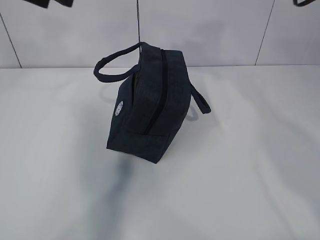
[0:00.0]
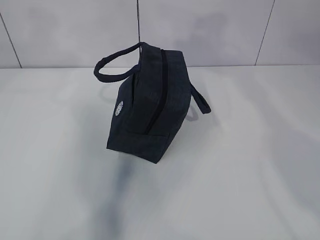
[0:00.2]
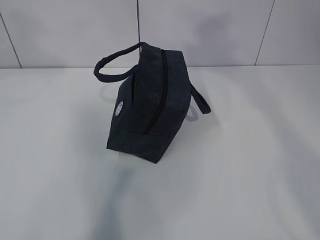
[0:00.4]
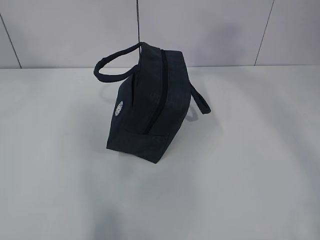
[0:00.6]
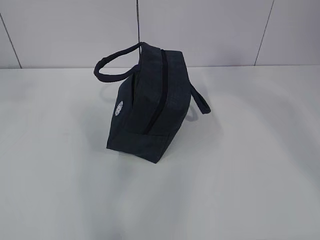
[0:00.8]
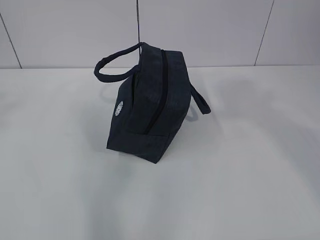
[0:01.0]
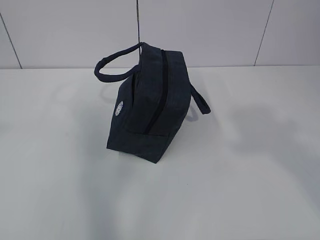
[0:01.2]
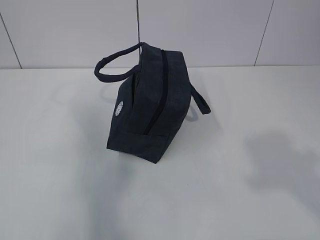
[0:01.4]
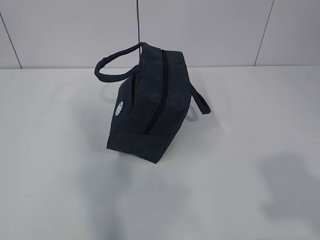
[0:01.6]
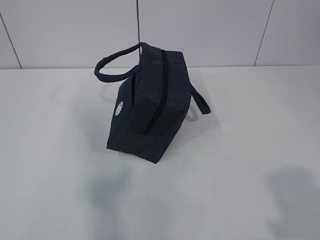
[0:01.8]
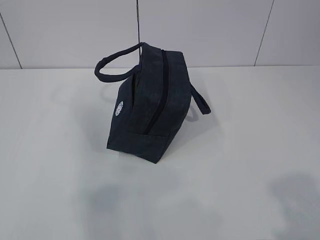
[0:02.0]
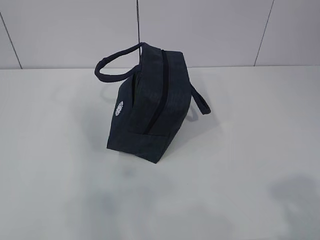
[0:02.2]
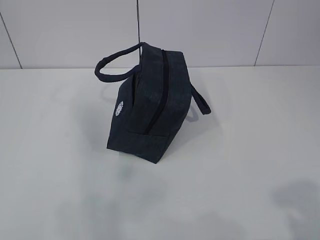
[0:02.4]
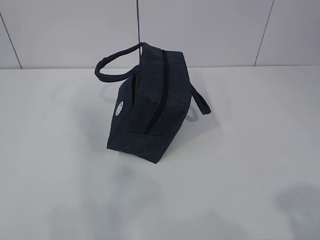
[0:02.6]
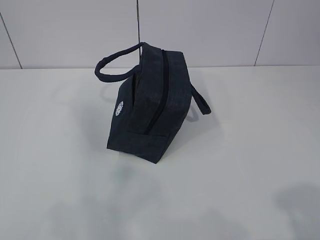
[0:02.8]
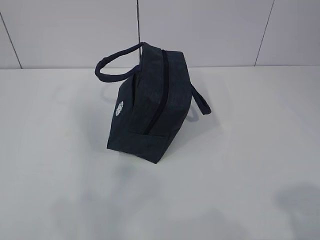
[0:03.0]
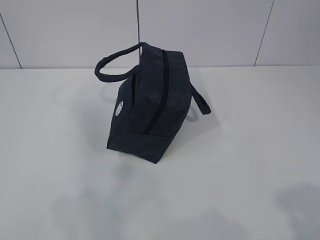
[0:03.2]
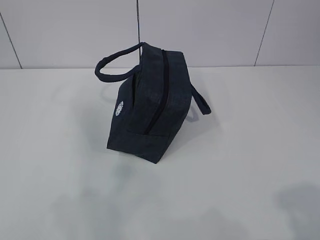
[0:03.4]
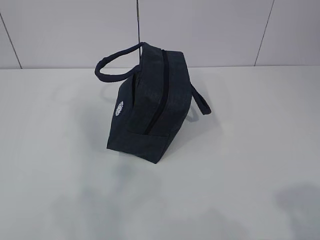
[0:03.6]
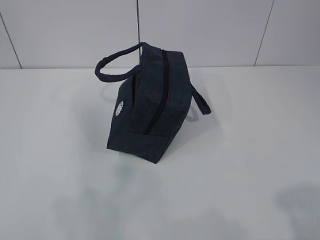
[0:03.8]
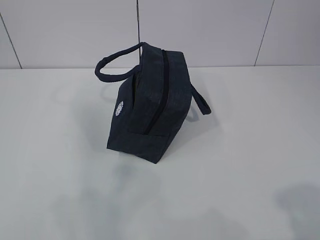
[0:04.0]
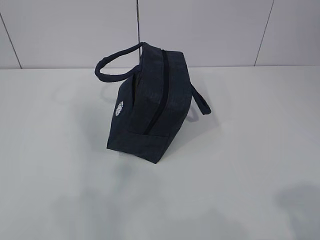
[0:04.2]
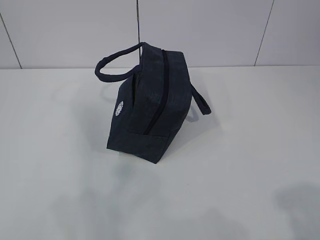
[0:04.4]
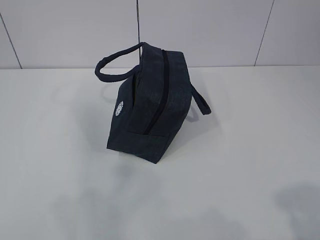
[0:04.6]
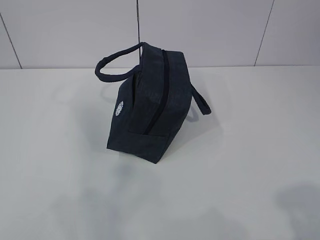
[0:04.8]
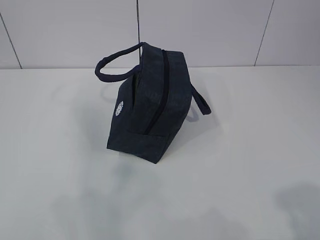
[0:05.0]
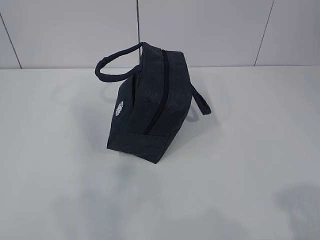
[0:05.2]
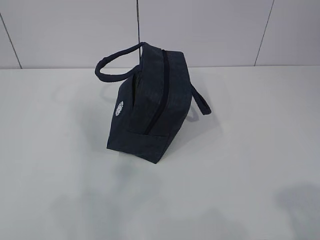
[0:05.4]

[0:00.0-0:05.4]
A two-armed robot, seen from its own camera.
0:00.0 to 0:01.4: Both grippers travel together backward, approximately 35 cm.
0:01.4 to 0:02.8: The left gripper goes approximately 15 cm downward.
0:02.8 to 0:05.4: Neither gripper changes place.

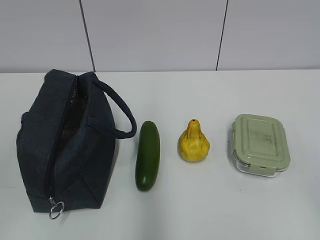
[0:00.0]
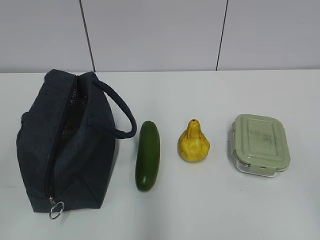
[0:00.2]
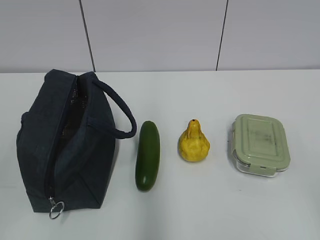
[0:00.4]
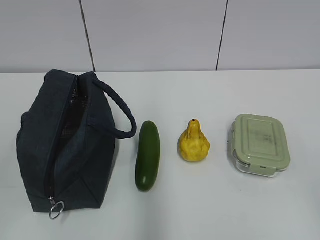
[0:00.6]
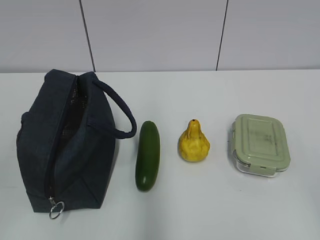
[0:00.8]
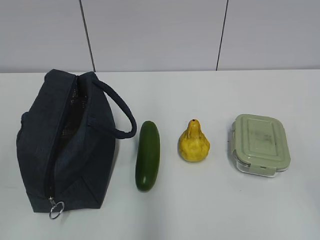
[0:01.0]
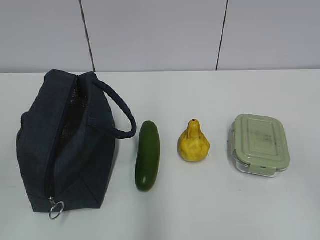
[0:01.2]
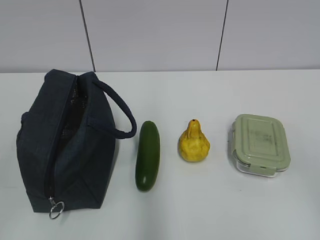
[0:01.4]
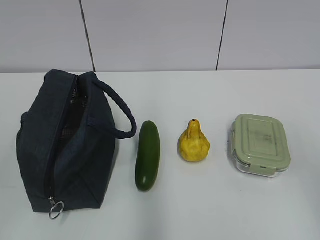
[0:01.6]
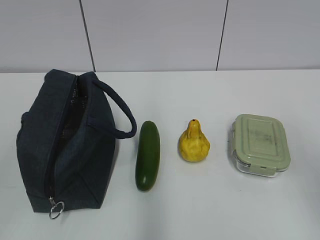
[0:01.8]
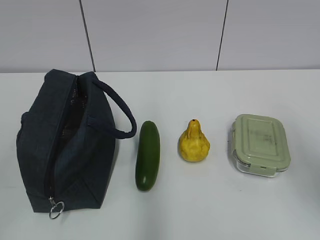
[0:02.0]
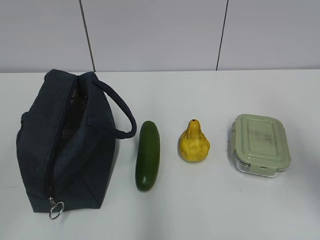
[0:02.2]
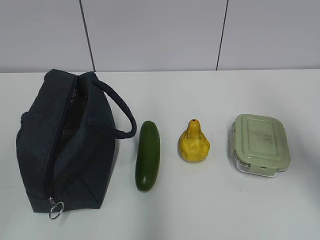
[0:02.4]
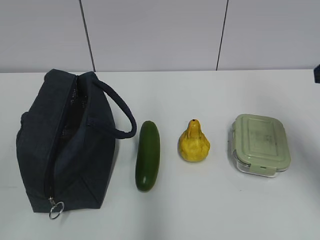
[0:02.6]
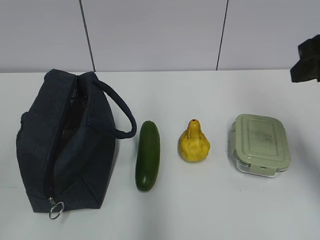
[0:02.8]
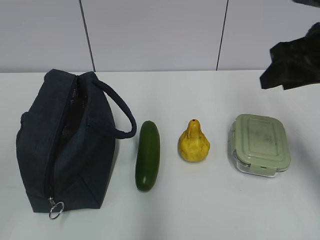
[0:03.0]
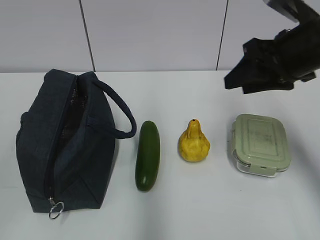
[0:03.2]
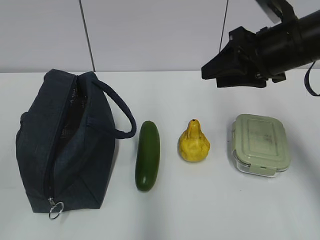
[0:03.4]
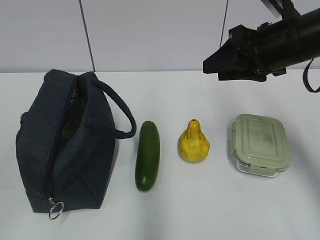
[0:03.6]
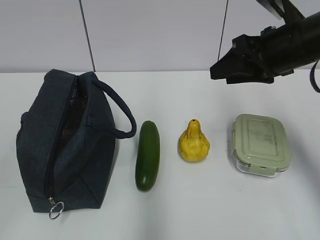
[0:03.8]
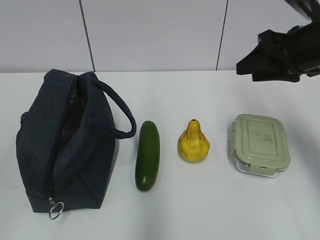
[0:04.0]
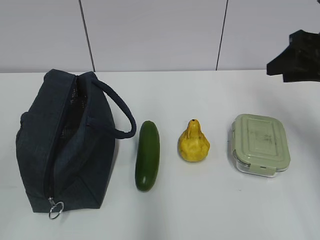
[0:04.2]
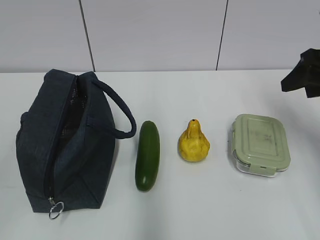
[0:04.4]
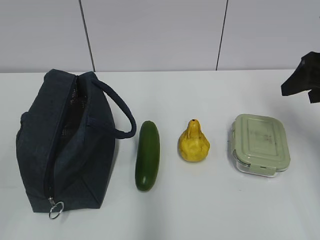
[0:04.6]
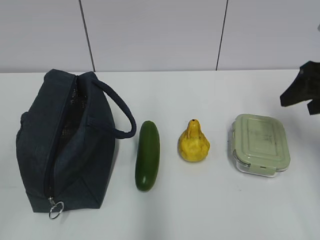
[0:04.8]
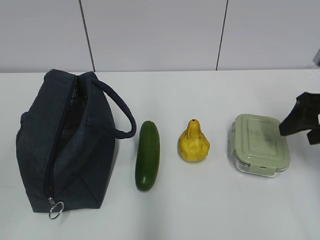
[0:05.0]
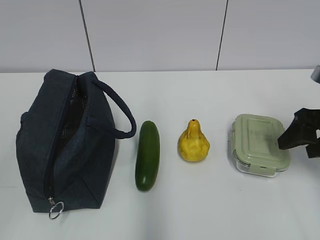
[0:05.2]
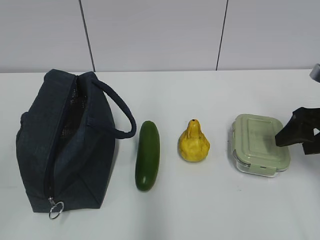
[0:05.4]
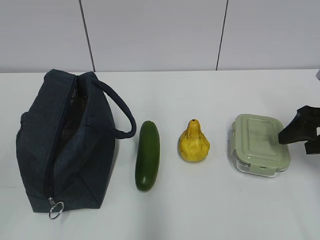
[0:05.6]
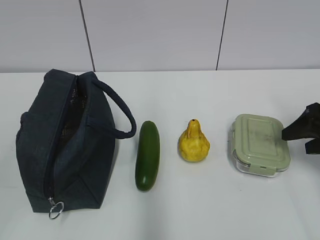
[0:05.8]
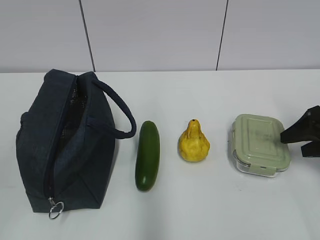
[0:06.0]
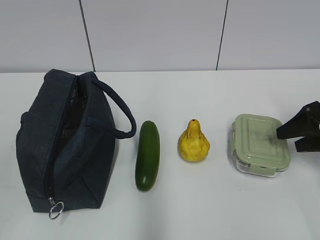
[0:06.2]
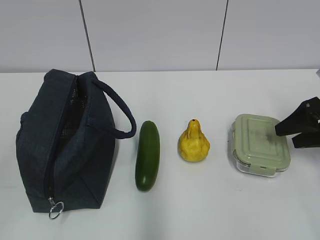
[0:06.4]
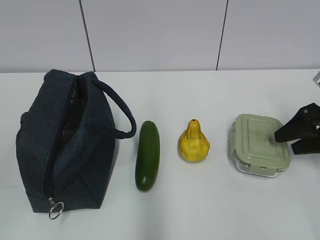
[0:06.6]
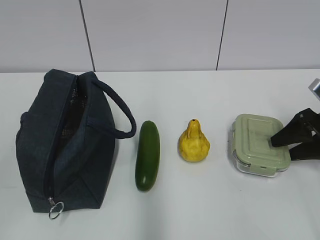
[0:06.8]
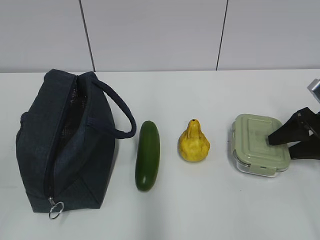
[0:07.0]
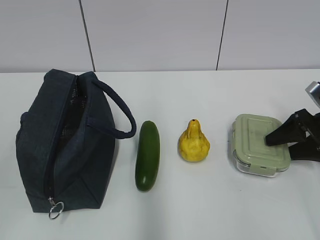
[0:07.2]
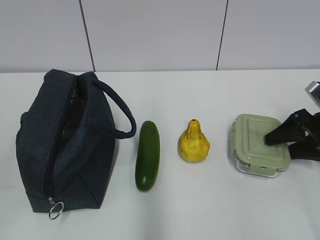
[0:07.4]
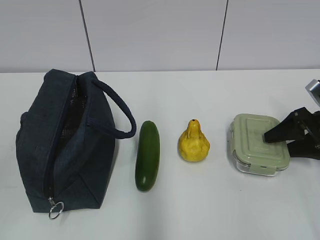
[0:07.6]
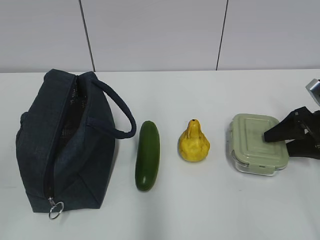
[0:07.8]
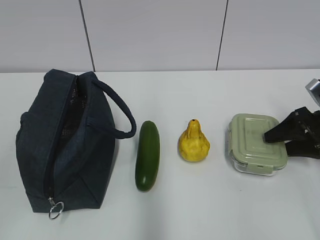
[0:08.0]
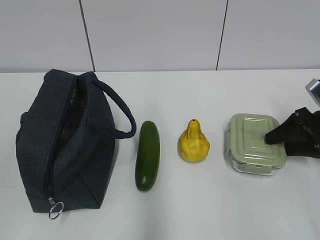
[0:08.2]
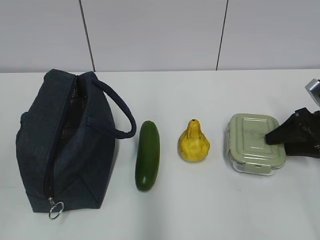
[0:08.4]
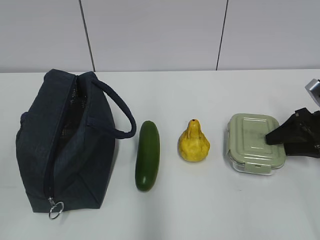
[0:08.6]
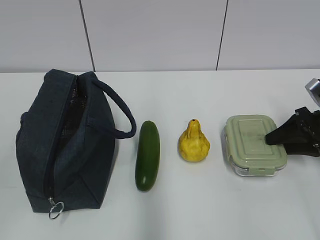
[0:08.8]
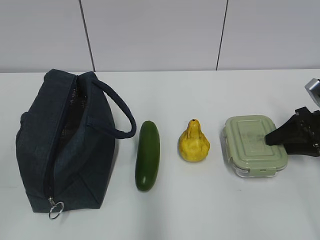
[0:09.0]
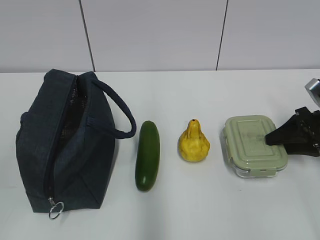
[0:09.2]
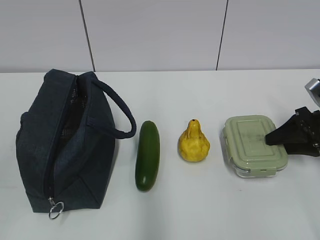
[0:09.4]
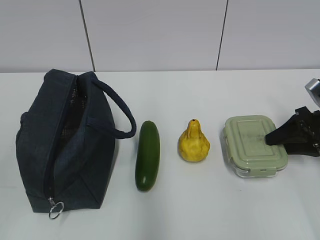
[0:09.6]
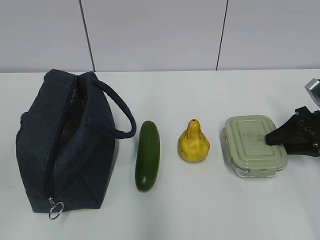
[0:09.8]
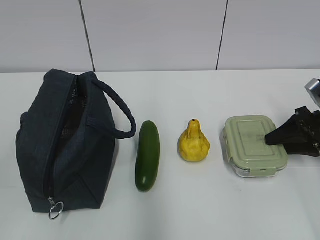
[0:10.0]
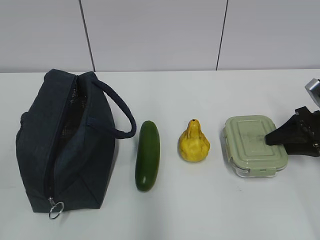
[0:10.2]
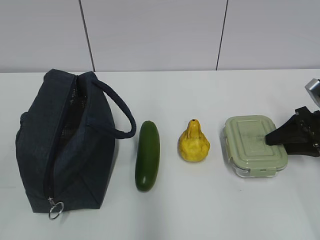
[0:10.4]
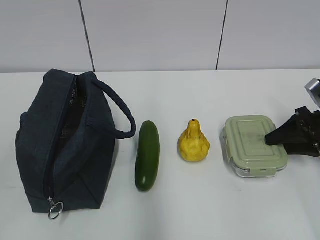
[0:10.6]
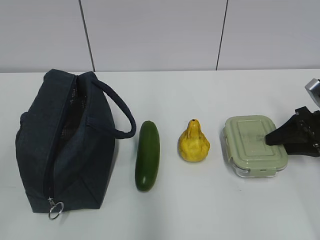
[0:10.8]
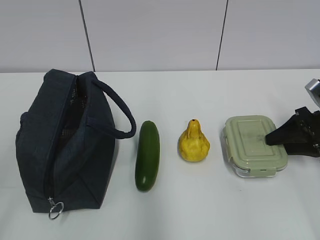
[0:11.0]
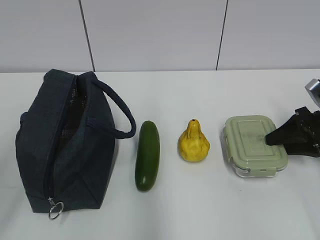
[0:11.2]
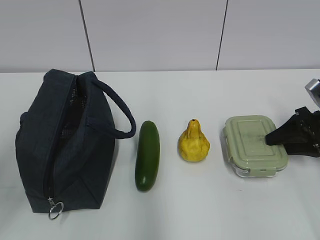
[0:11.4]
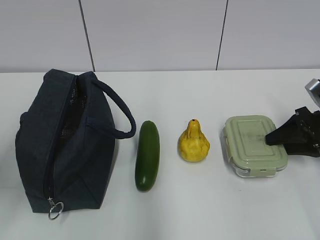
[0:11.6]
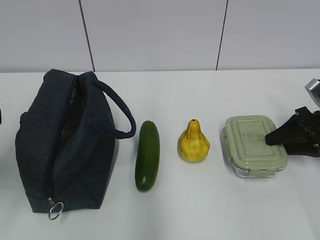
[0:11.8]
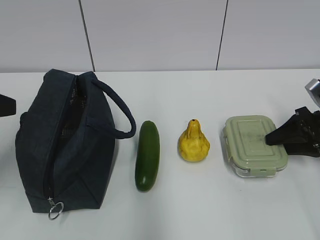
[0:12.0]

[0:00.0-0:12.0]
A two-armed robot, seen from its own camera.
0:01.6 to 0:03.0: The right gripper is displaced forward by about 25 cm.
0:03.0 to 0:04.4: The right gripper goes some 10 cm to the right.
0:04.4 to 0:06.0: The right gripper goes approximately 10 cm downward.
0:06.0 to 0:07.6: The right gripper ends up approximately 5 cm from where it was.
0:07.6 to 0:09.0: The right gripper closes.
0:09.0 to 0:10.4: Both grippers stay about where they are.
0:10.4 to 0:12.0: The left gripper shifts roughly 20 cm forward.

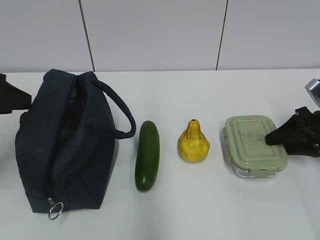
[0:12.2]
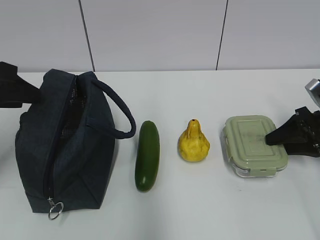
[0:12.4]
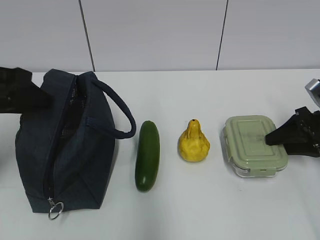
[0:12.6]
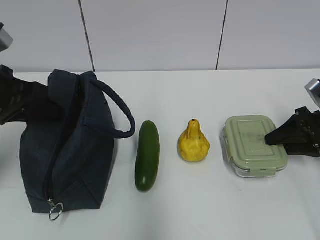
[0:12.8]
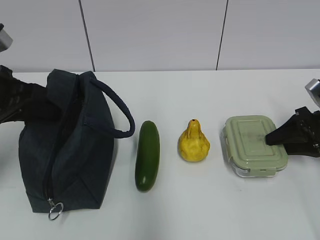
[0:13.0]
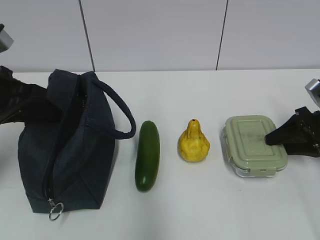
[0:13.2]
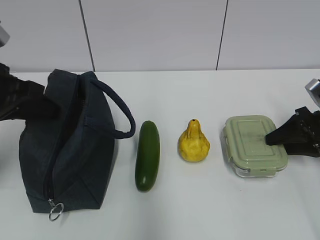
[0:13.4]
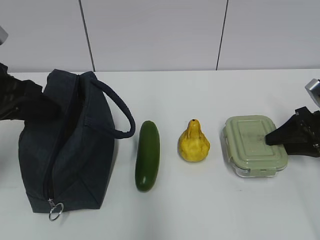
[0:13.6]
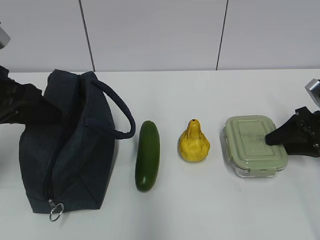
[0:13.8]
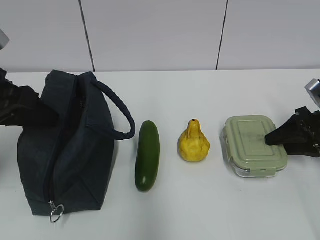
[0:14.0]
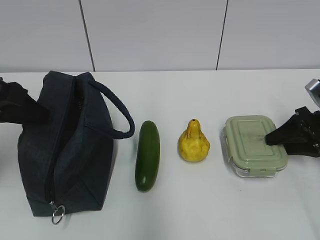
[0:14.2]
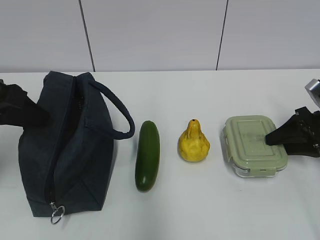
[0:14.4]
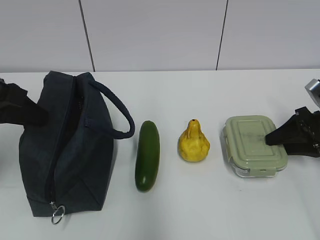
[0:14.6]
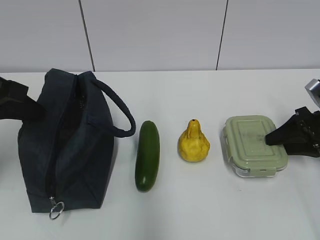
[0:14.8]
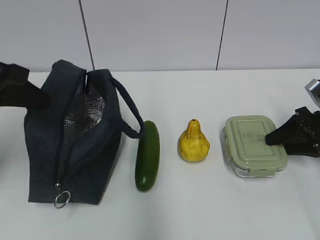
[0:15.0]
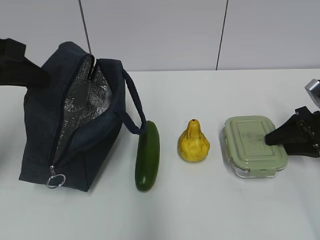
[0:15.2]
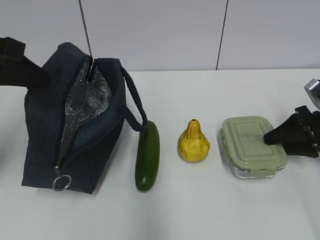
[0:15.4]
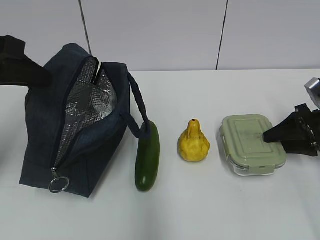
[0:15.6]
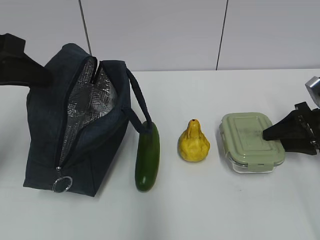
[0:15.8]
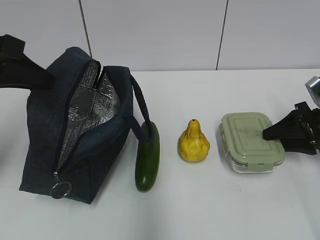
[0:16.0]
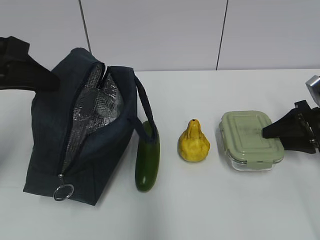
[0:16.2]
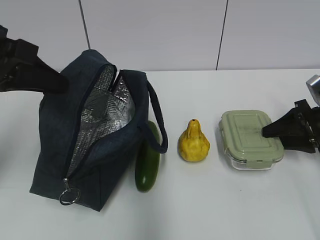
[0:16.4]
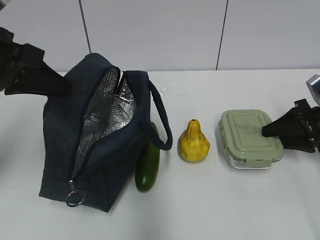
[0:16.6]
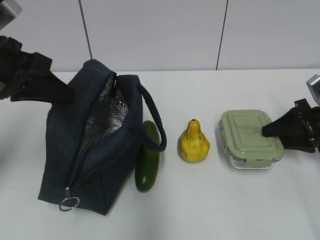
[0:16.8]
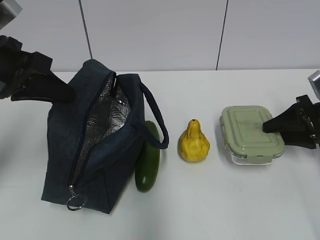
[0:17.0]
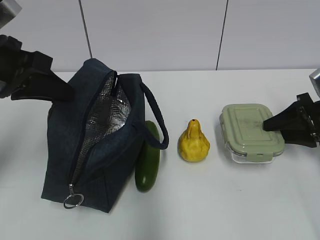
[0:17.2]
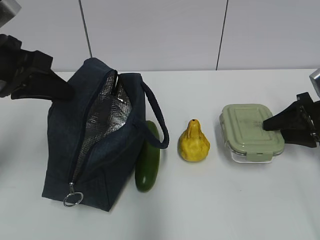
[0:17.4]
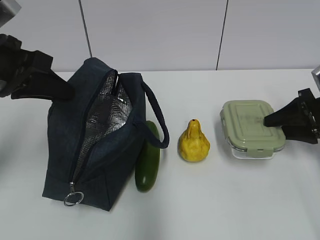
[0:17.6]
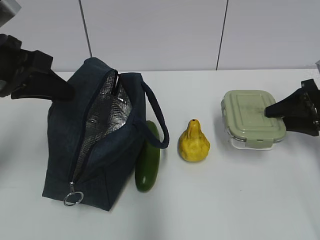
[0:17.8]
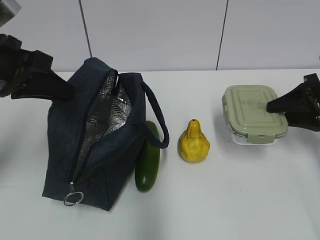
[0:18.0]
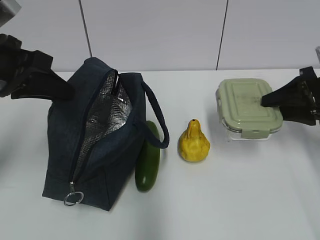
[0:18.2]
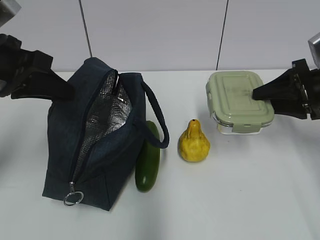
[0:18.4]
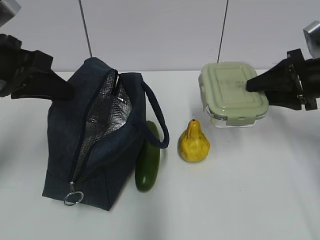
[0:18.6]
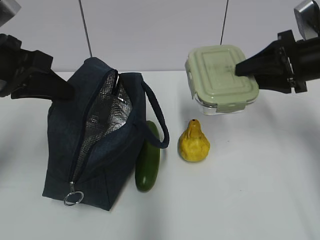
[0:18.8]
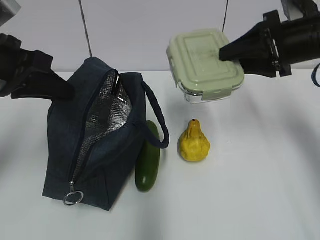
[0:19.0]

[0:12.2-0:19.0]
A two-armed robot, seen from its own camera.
0:12.2 to 0:13.6: There are only small adjustments of the grippers.
0:13.6 to 0:15.0: The left gripper closes up.
0:15.0 to 0:17.6: The grippers move only a little.
0:17.6 to 0:19.0: The right gripper goes roughly 15 cm upward and to the left.
